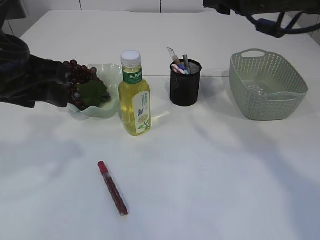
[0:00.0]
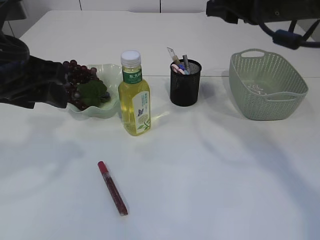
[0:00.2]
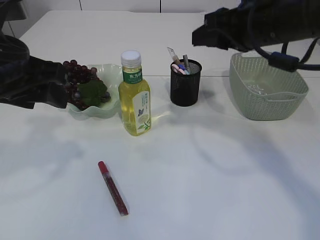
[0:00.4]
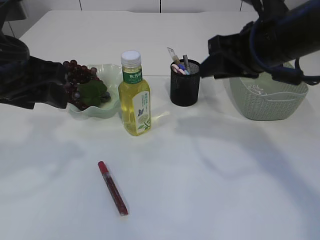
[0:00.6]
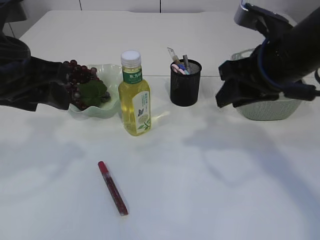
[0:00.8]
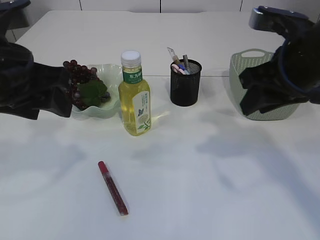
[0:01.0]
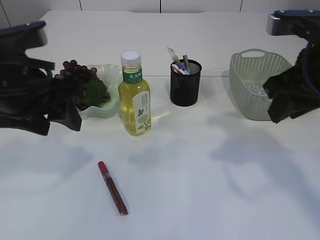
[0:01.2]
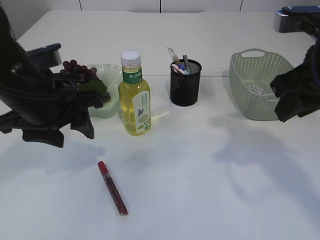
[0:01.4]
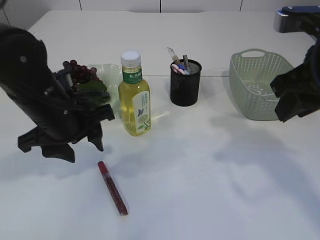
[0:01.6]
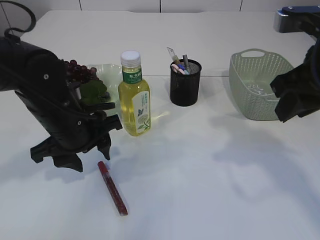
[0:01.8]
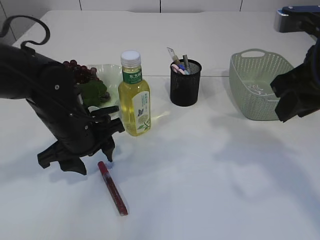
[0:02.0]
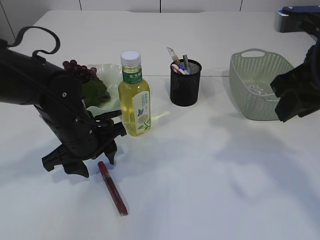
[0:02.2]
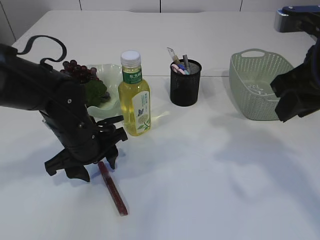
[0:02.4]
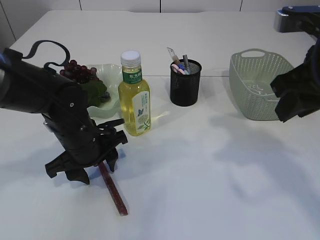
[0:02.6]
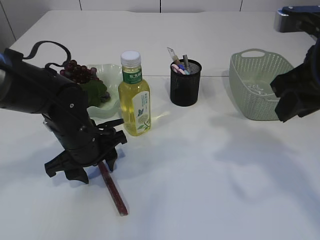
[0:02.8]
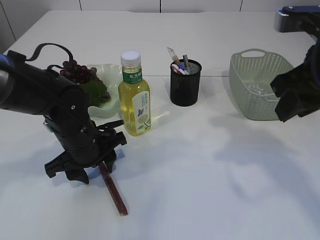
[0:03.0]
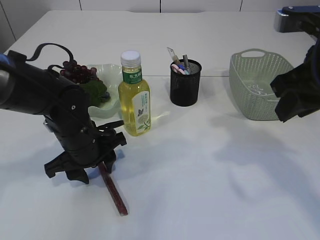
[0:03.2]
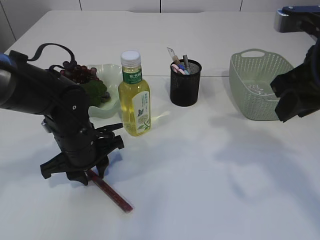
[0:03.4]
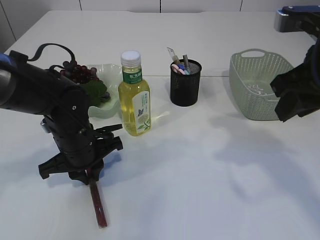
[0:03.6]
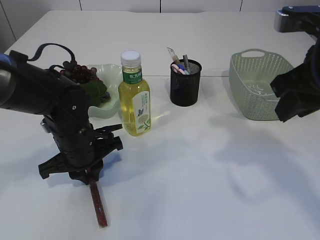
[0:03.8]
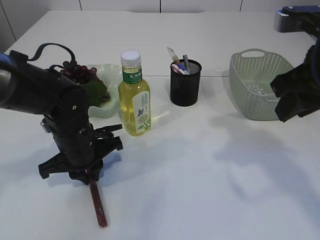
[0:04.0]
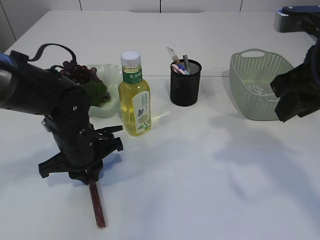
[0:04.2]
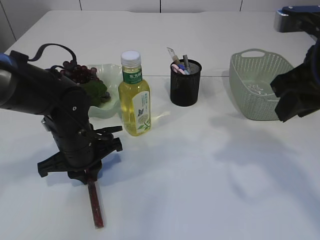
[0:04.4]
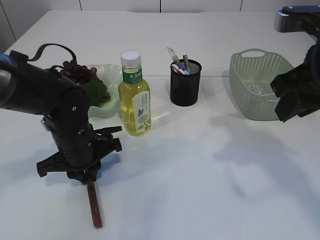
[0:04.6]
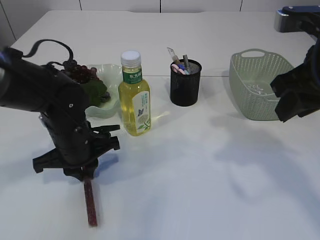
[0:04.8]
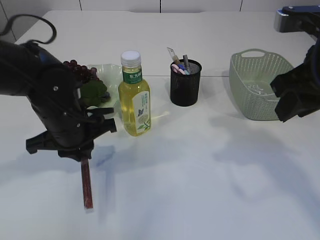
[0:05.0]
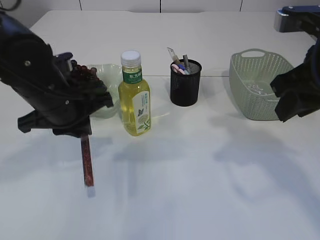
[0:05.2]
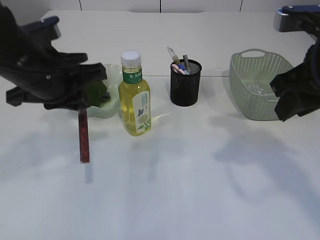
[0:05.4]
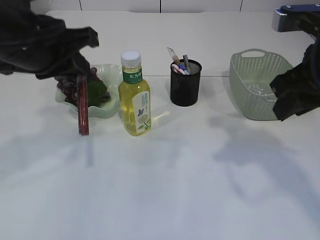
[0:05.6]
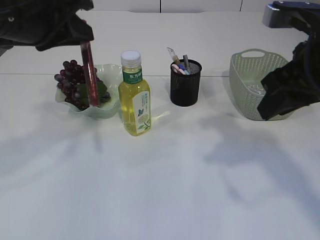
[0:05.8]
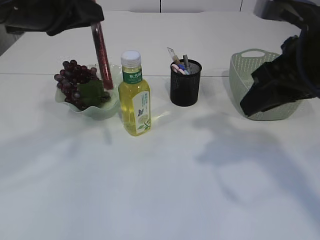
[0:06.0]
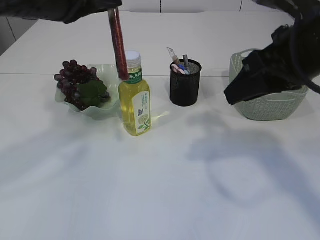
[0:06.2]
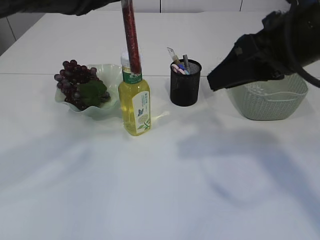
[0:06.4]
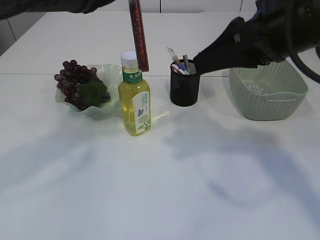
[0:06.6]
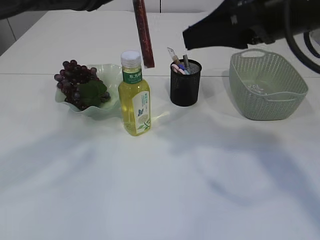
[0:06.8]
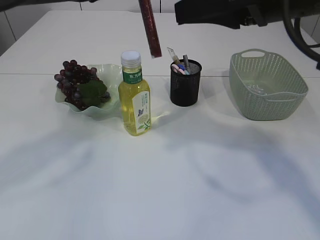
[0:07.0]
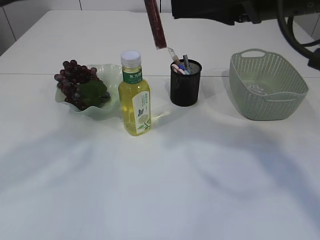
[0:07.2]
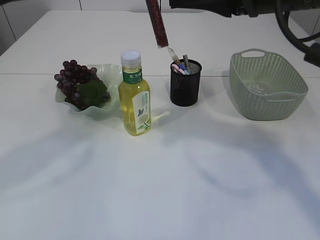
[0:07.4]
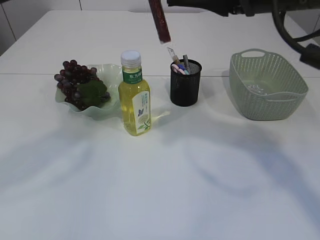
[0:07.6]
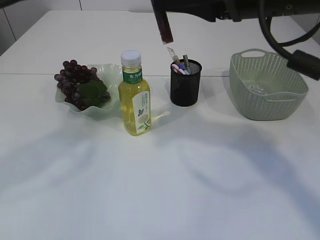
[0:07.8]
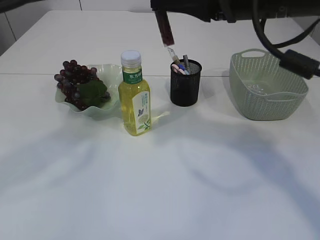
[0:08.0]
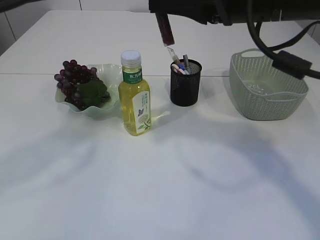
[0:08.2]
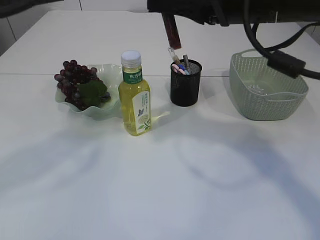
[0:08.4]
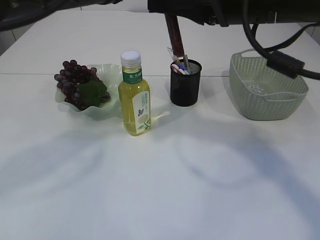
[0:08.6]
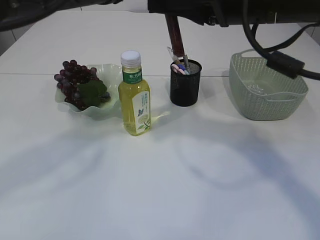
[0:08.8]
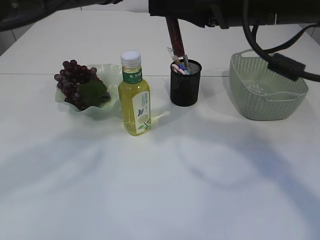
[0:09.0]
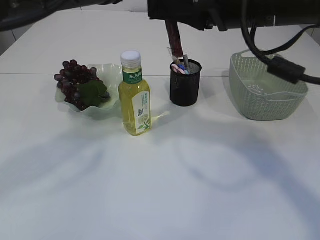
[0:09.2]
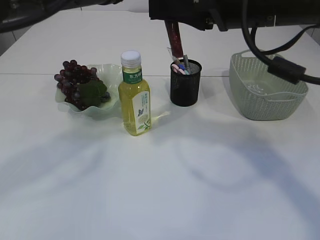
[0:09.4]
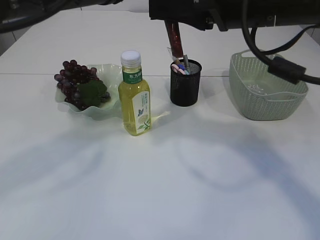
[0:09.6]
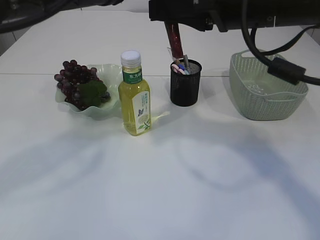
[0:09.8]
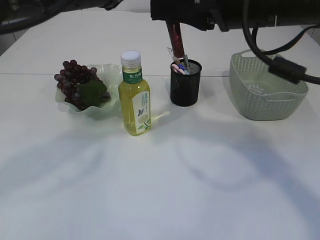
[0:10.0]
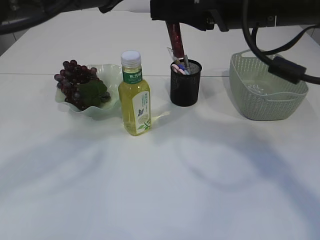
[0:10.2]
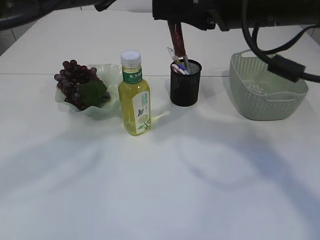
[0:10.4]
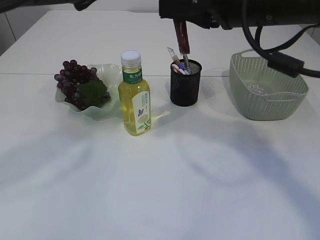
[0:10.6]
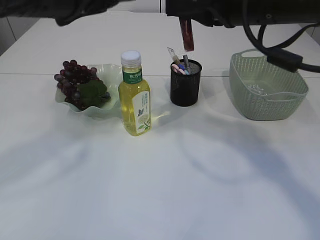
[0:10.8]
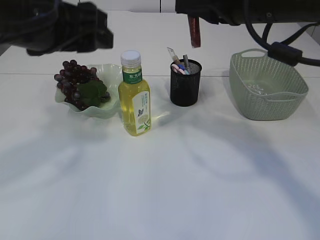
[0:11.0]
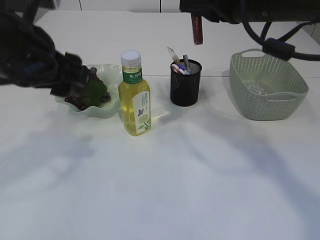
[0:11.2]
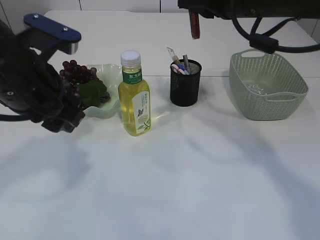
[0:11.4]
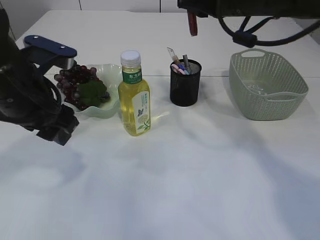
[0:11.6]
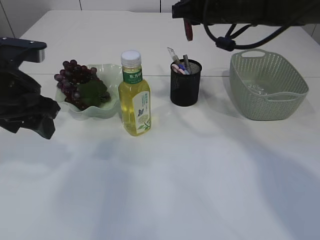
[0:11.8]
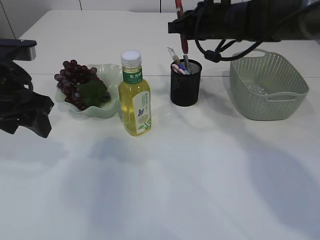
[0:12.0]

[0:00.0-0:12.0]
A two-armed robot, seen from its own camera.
Step, 0:00.0 to 0:05.2: Pick up the pen with left arm.
Step, 0:05.4 to 0:10.8: transfer the pen to the right arm.
0:00.0 to 0:01.6: The left gripper heads downward, covering approximately 10 cm, while the right gripper heads backward, covering some 10 cm.
0:01.6 to 0:03.0: The left gripper moves downward, roughly 10 cm.
0:03.0 to 0:04.4: The left gripper closes.
0:04.4 to 0:06.0: The left gripper moves upward, approximately 25 cm.
0:06.0 to 0:07.6: The right gripper travels upward by roughly 5 cm, while the left gripper shifts by roughly 5 cm.
0:07.6 to 0:09.0: There are only small adjustments of the grippers.
0:09.0 to 0:10.4: The left gripper opens its fingers.
0:10.4 to 0:12.0: The right gripper goes about 20 cm forward and downward; the left gripper shifts some 20 cm to the left and downward.

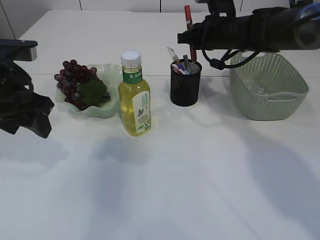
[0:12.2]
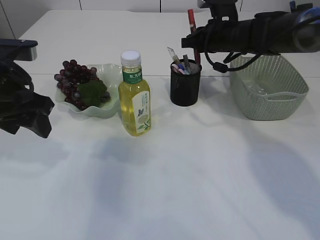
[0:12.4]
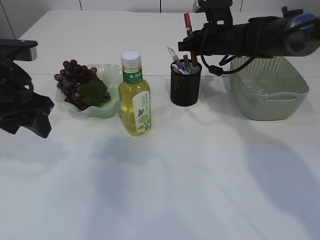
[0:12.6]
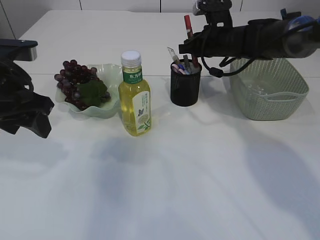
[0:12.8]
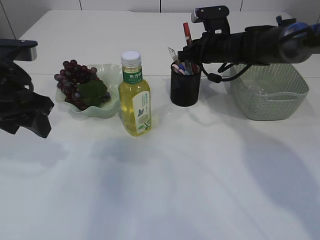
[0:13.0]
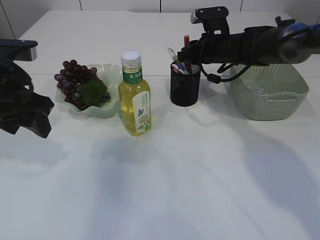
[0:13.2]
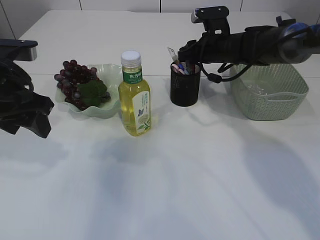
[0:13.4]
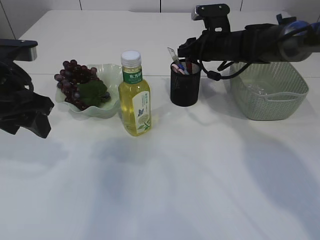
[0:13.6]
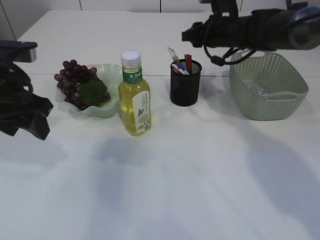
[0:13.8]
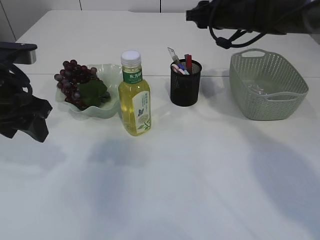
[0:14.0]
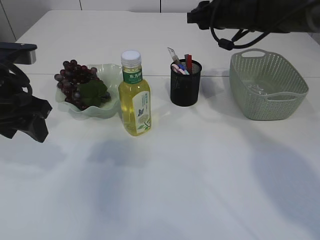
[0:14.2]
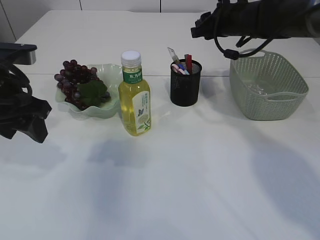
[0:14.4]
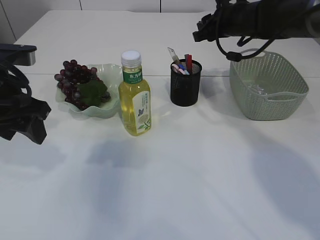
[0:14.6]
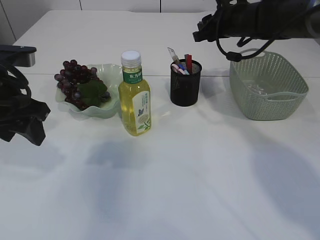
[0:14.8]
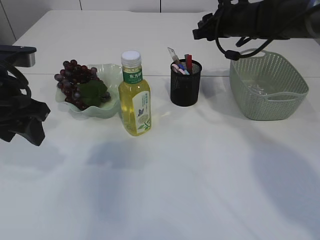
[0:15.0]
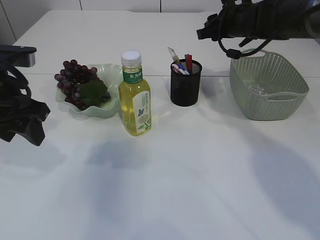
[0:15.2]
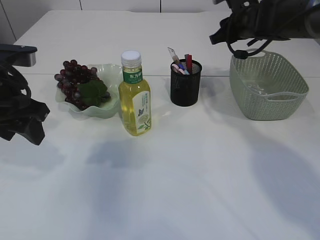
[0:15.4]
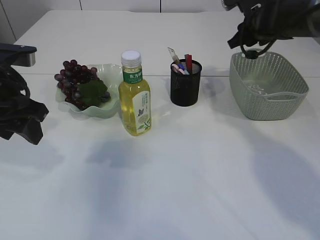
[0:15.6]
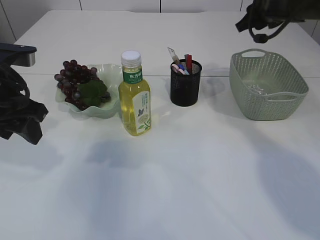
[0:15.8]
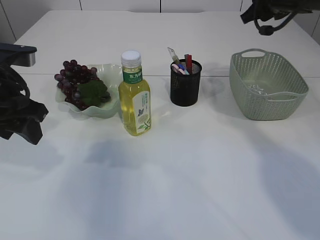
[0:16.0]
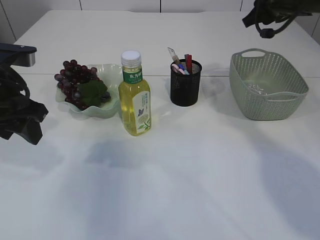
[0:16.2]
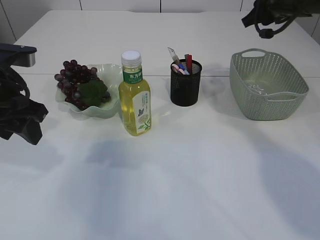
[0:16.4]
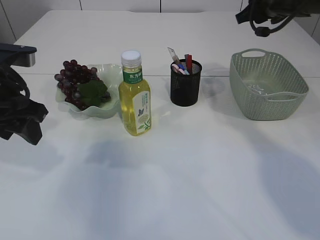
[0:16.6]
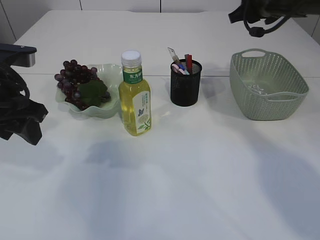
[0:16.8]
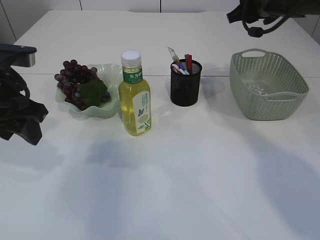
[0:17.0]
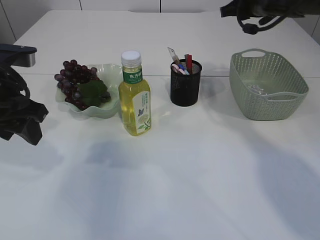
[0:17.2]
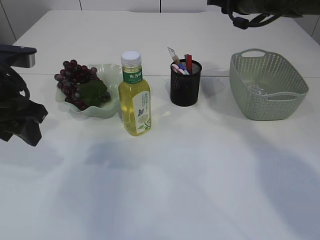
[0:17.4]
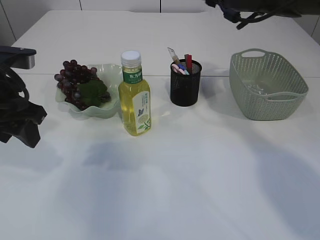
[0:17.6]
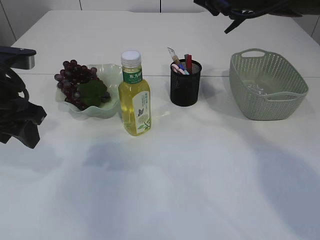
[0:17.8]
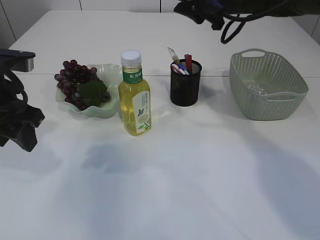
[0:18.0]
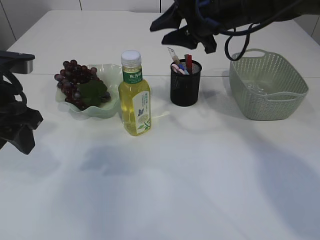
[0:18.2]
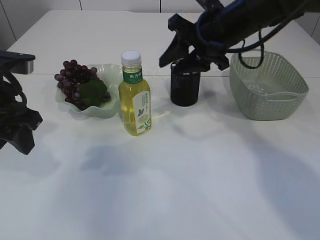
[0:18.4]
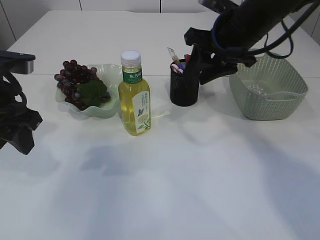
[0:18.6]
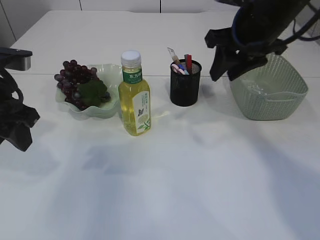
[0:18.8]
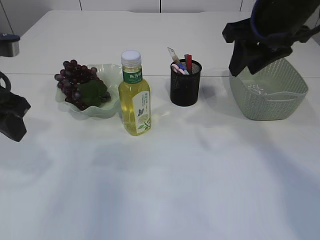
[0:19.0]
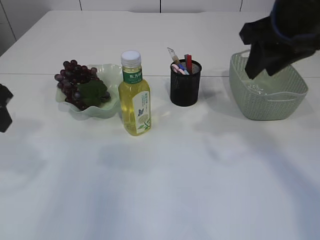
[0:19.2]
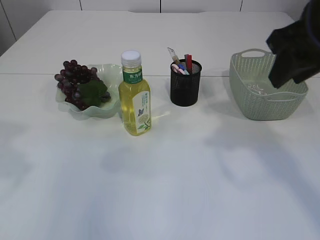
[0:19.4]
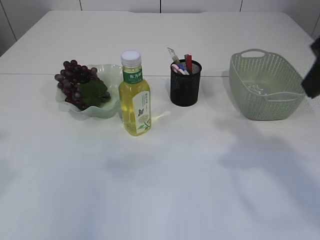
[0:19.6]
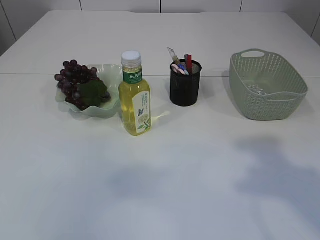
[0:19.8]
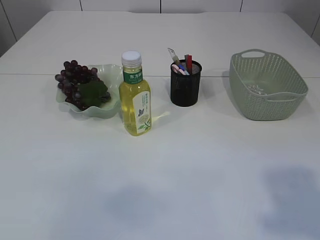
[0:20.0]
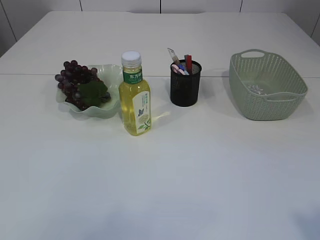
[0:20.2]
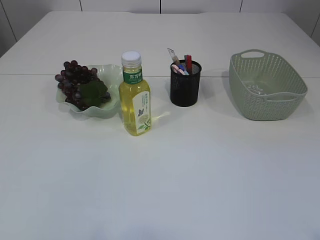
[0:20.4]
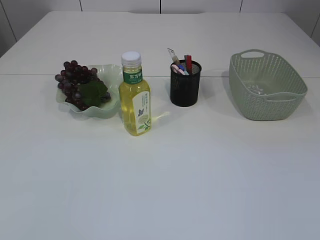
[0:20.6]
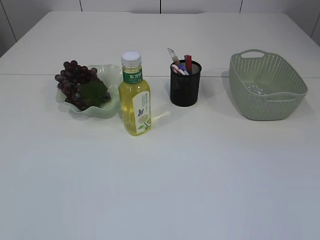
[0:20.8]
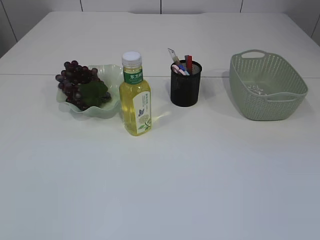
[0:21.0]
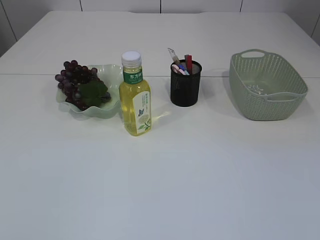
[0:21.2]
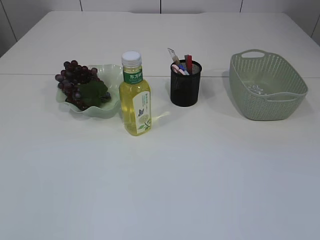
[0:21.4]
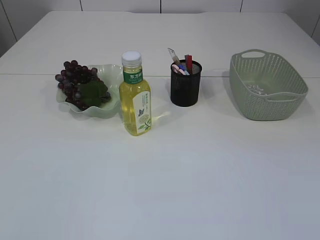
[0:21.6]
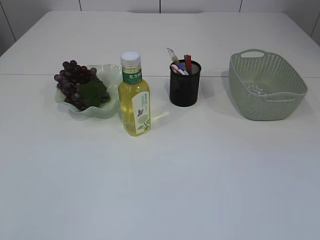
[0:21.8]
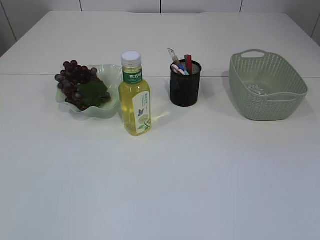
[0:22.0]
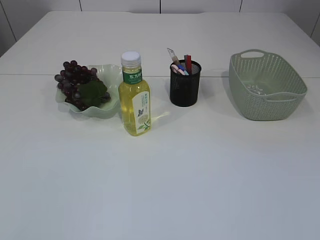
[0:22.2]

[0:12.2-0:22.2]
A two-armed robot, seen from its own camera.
Step, 0:12.2 to 0:13.8: Place the pen into the pen holder.
0:12.2 to 0:13.6: The right gripper opens its fingers.
0:13.6 to 0:15.0: The right gripper is displaced upward by roughly 5 cm.
0:15.0 to 0:16.4: The right gripper shifts about 5 cm to the right.
0:16.4 to 0:18.0: The right gripper travels to the left by approximately 10 cm.
0:18.0 to 0:19.4: The left gripper shifts roughly 10 cm upward and backward, while the right gripper travels backward and to the right by some 20 cm.
0:19.4 to 0:20.8: The right gripper shifts approximately 35 cm backward.
